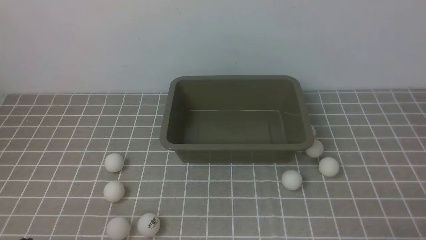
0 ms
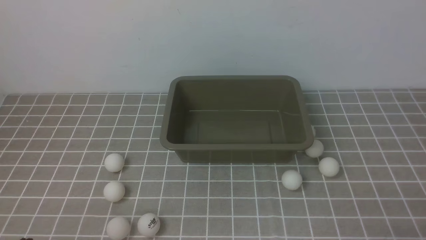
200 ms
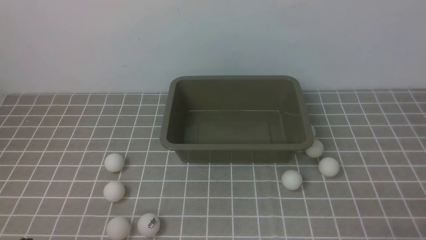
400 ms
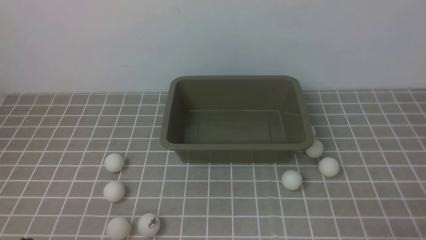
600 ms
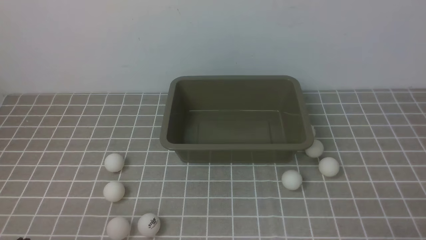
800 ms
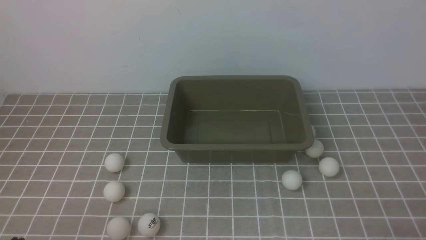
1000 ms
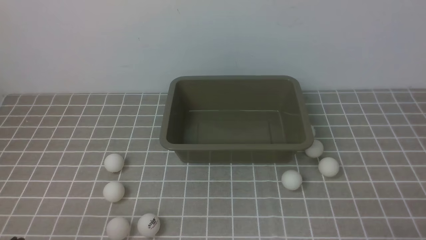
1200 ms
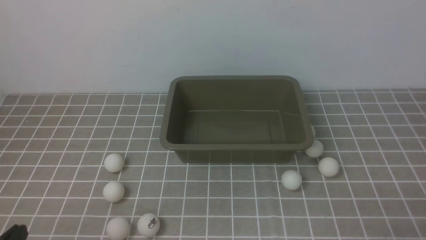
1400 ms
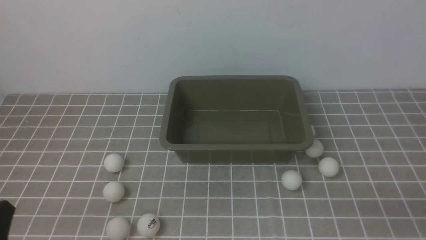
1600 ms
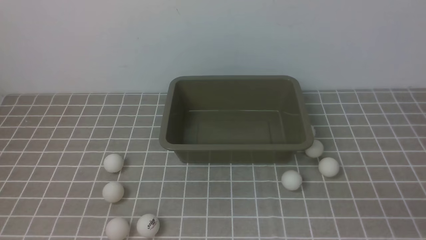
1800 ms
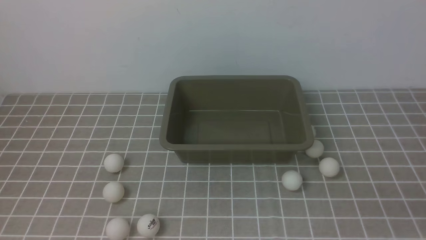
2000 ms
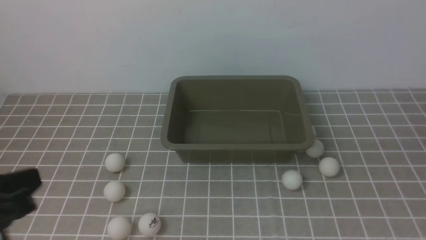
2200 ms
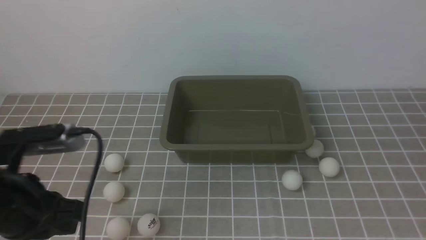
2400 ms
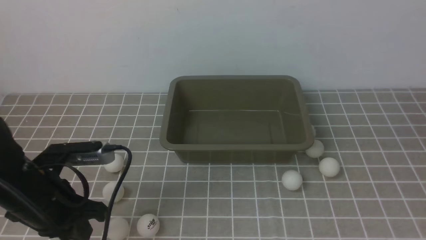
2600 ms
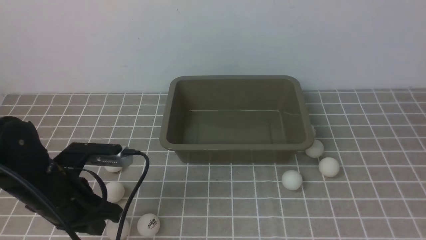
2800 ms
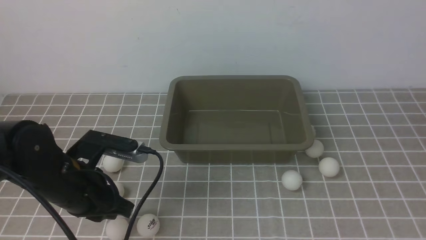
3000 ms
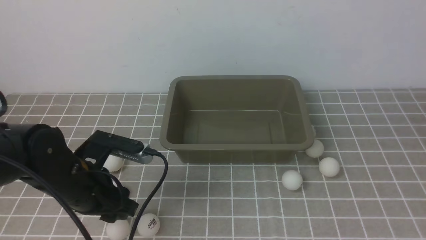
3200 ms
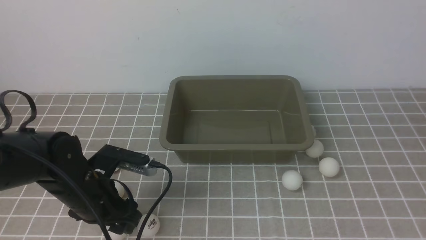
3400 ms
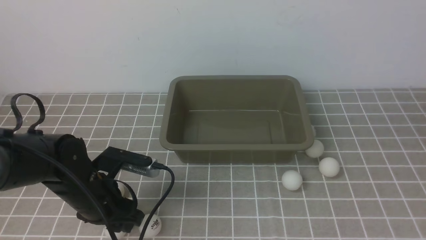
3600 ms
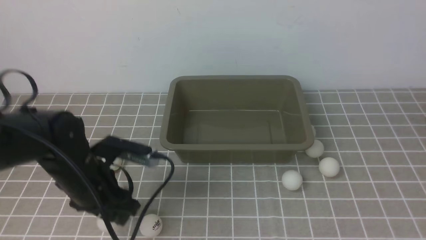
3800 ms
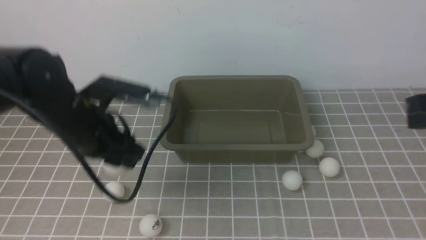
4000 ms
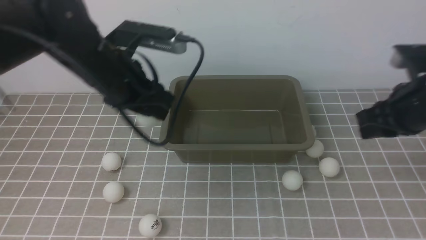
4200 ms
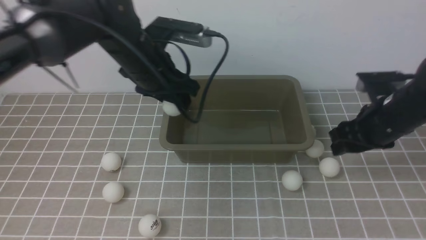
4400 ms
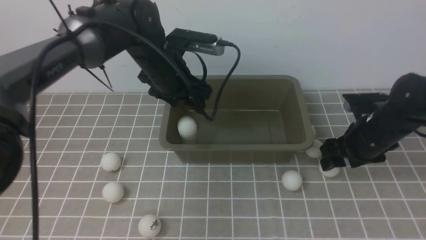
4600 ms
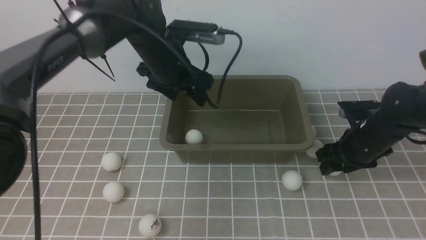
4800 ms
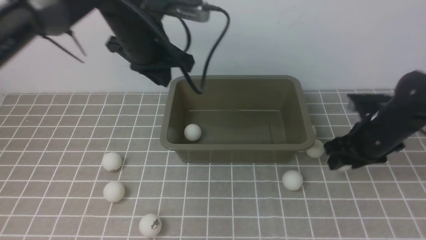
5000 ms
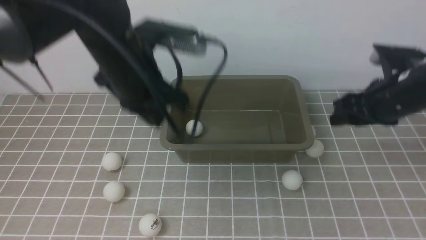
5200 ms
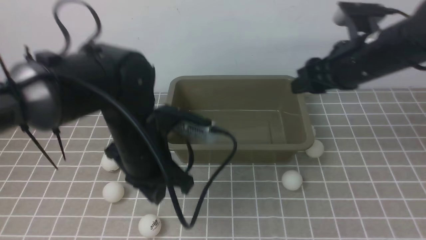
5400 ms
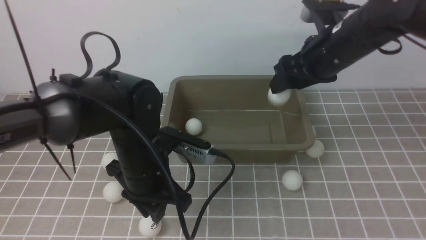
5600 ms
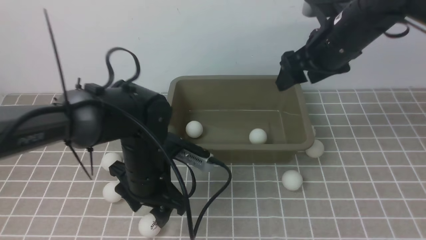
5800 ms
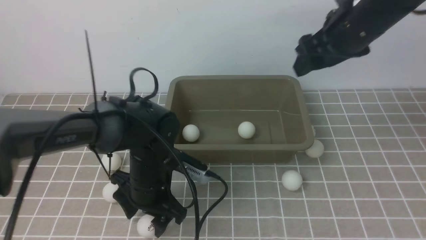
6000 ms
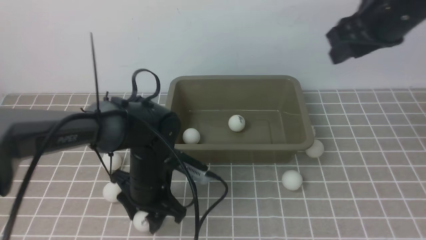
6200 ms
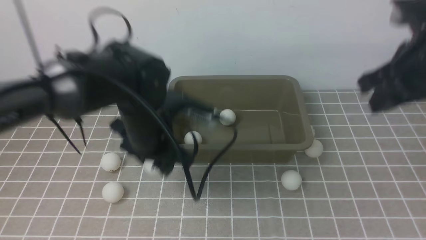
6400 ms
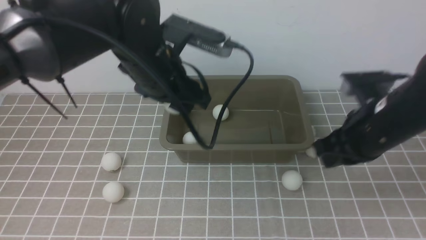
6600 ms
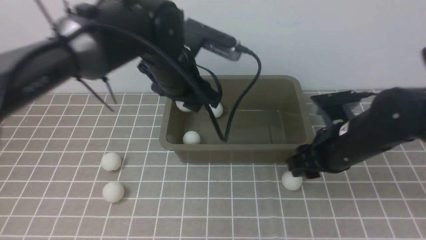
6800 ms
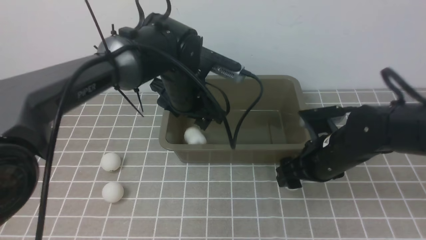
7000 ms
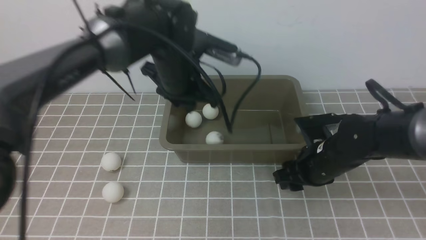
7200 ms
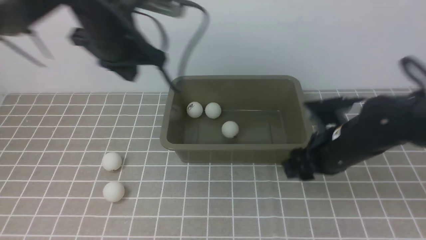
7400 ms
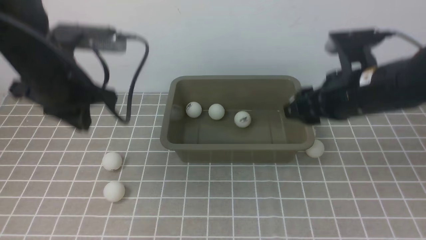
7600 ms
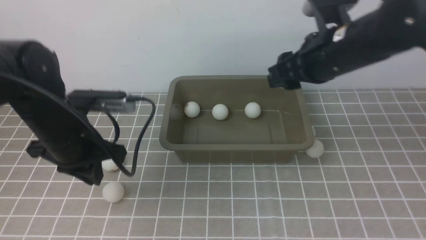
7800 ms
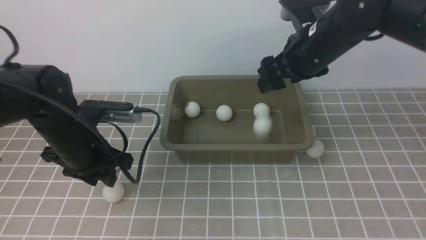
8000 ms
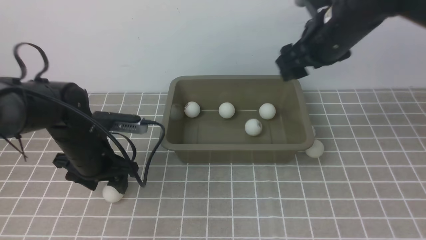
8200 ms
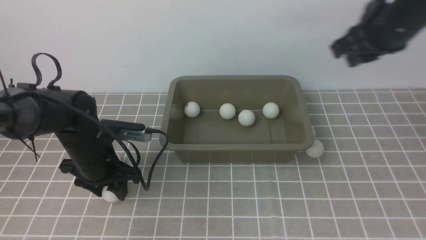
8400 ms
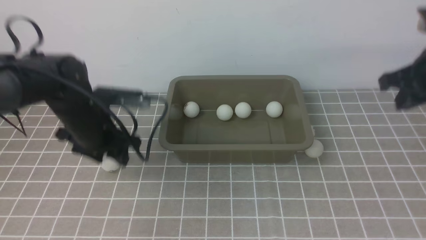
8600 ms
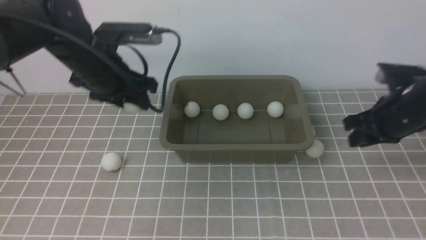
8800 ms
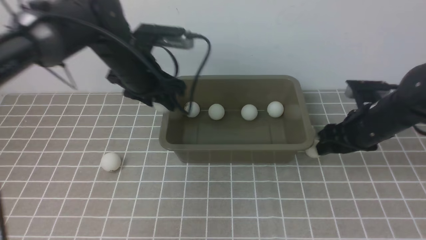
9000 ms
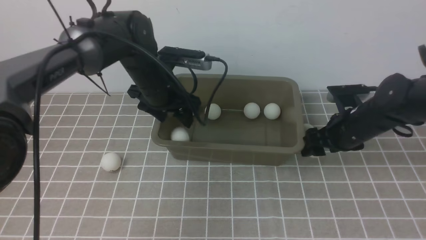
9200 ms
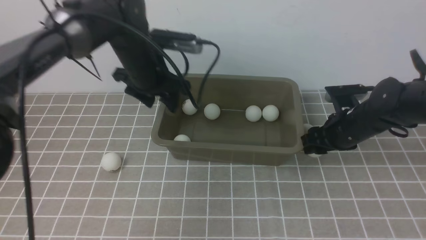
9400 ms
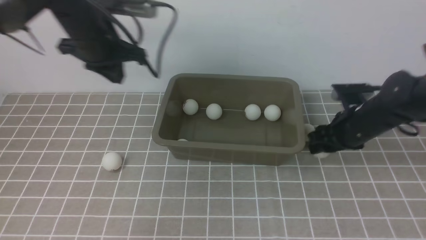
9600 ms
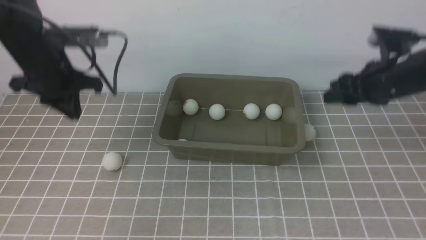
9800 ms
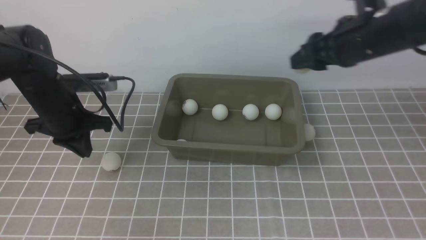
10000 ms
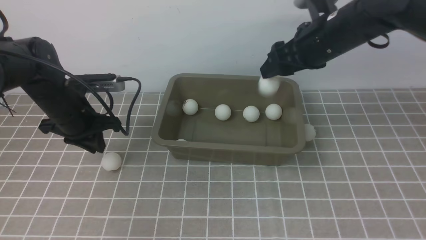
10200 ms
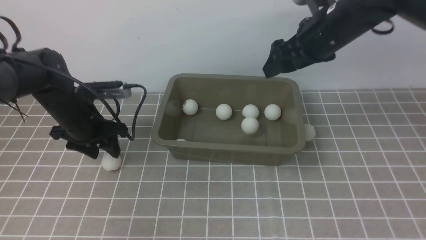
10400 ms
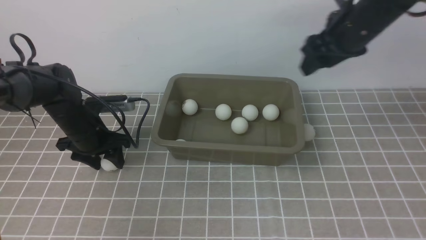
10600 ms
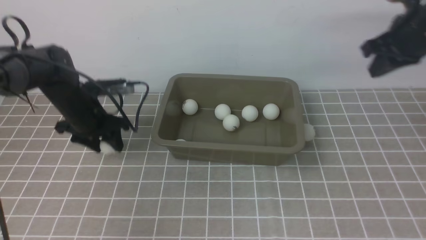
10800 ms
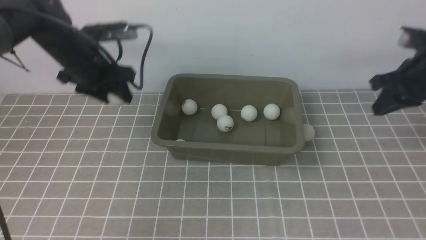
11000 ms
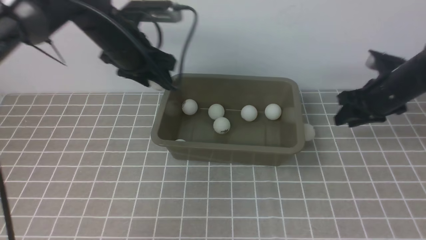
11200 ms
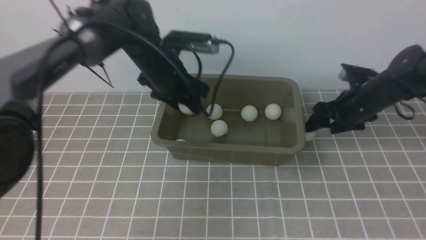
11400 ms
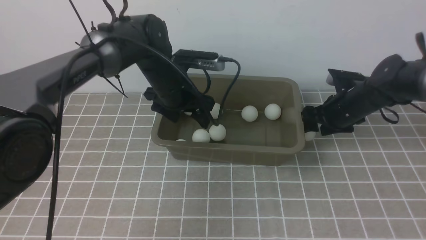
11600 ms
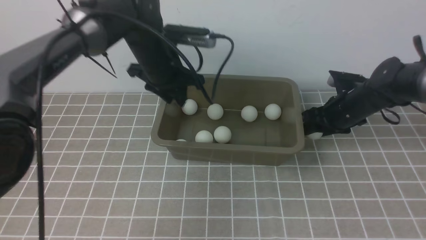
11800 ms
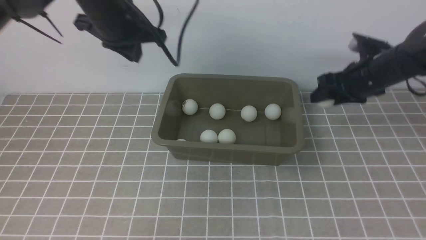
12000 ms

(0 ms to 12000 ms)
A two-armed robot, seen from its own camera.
Step, 0 ms - 3800 ms: use the left arm to clamp the table tennis ball closest to it.
Step, 4000 ms - 4600 ms: use the left arm to put the table tennis ball into the box.
Step, 4800 ms - 5000 ms: use the right arm to clamp the table tennis ball closest to it.
Step, 5400 ms - 5600 ms: use the right arm to put the table tennis ball into the box.
Step, 5800 ms - 6200 ms: use the left arm to clamp the table tennis ball closest to it.
Step, 6600 ms - 6800 ms: use the left arm to put the table tennis ball into the box.
Step, 7200 ms - 7400 ms: use the right arm to clamp the table tennis ball closest to it.
Step, 7800 ms - 8000 ms: use the right arm to put the table tennis ball into the box.
Step, 8200 ms - 8400 ms: use the left arm to clamp the table tennis ball closest to it.
Step, 8800 ms - 9200 ms: use the left arm to put the table tennis ball into the box.
Step, 9400 ms - 9600 ms: use the right arm to clamp the table tennis ball closest to it.
Step, 9800 ms - 10200 ms: use the right arm to put the table tennis ball into the box.
Step, 10400 ms - 10800 ms: use the left arm to clamp the table tennis ball closest to it.
Step, 11200 ms - 11400 ms: use the left arm to put the table tennis ball into the box.
Step, 11800 ms - 12000 ms: use the right arm to clamp the table tennis ball closest to it.
1600 ms - 3000 ms: The left gripper is displaced forward by some 20 cm, and opens its fingers, while the right gripper heads upward and forward, covering about 20 cm.
3000 ms - 4400 ms: The left gripper goes roughly 20 cm forward, upward and to the right, and opens. The right gripper shifts some 20 cm forward and downward, and opens its fingers.
4400 ms - 6000 ms: The right gripper moves upward and to the left, roughly 15 cm, while the left gripper heads downward and backward, covering about 15 cm, and closes, then reopens.
6000 ms - 7600 ms: The left gripper is displaced upward and to the left by some 15 cm, and closes up, while the right gripper moves downward, approximately 10 cm, and closes, then opens again.
7600 ms - 9000 ms: The left gripper heads forward and to the right, covering approximately 10 cm, goes downward and returns, roughly 15 cm each way, and opens; the right gripper shifts about 15 cm downward and to the right, and closes, then reopens.
9000 ms - 10400 ms: The left gripper is displaced to the left and downward by some 15 cm, and closes, then opens again, while the right gripper heads upward and to the left, covering approximately 15 cm.
10400 ms - 12000 ms: The left gripper is displaced upward and to the right by approximately 20 cm, and closes; the right gripper heads downward, covering approximately 10 cm, and closes, then opens again.

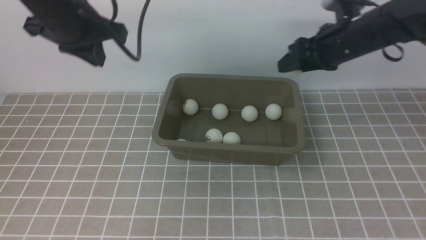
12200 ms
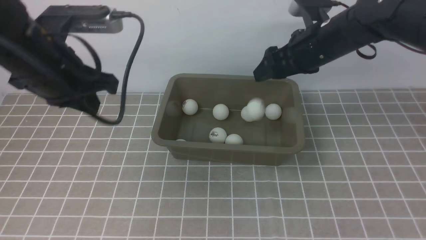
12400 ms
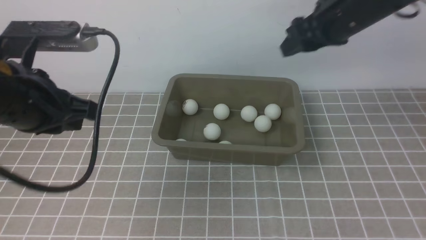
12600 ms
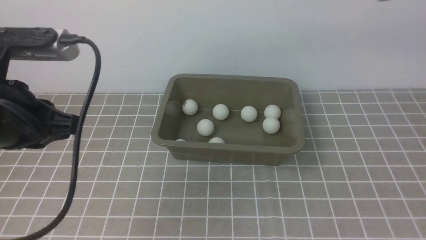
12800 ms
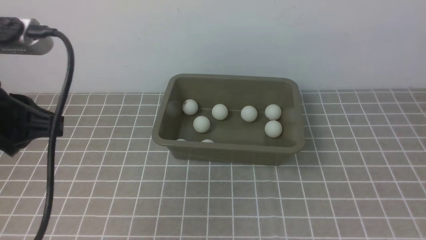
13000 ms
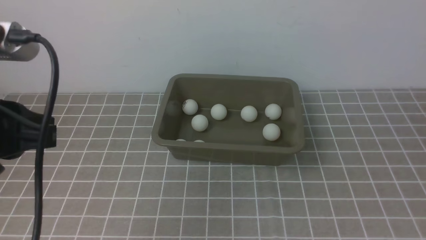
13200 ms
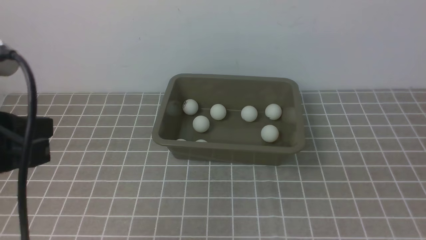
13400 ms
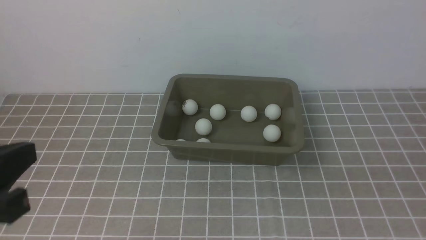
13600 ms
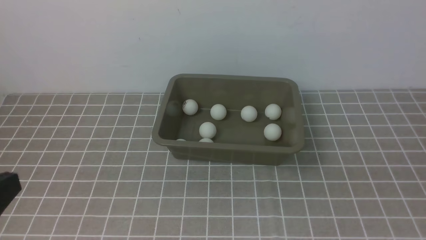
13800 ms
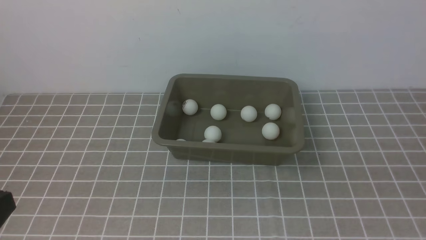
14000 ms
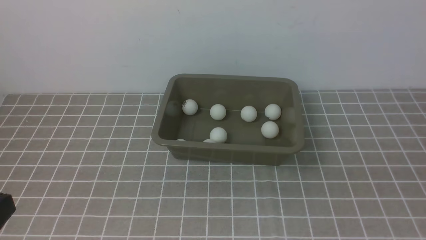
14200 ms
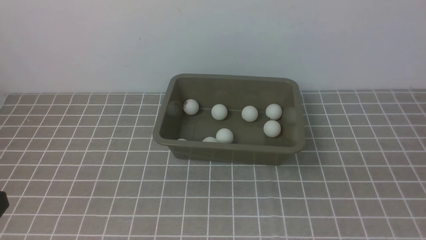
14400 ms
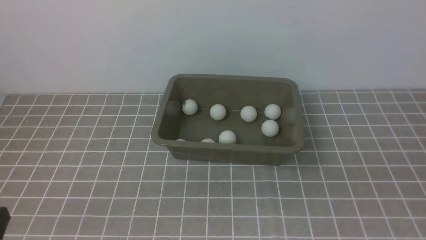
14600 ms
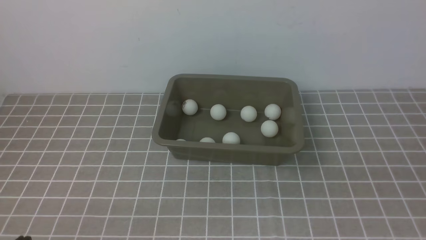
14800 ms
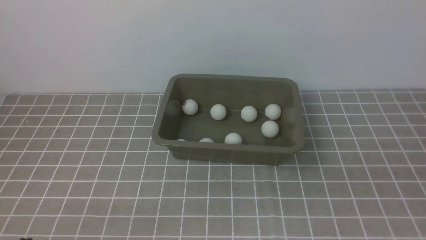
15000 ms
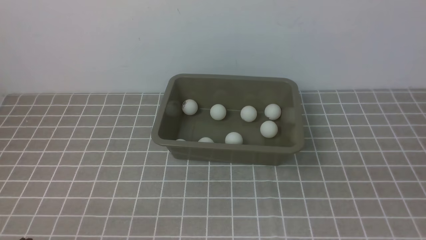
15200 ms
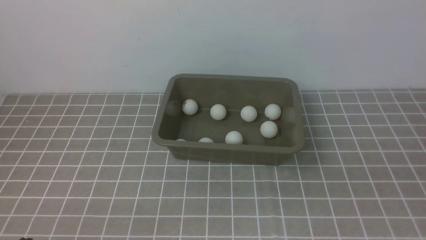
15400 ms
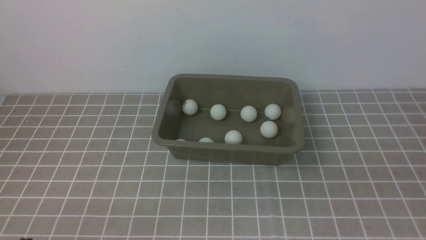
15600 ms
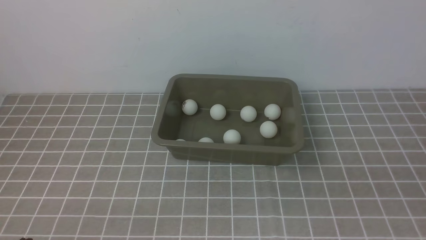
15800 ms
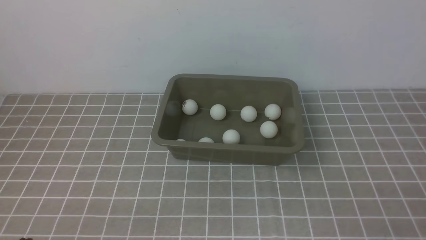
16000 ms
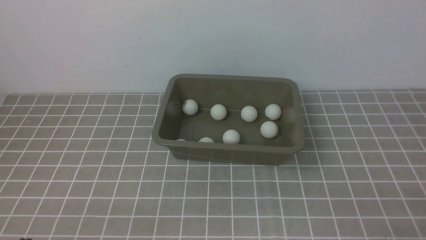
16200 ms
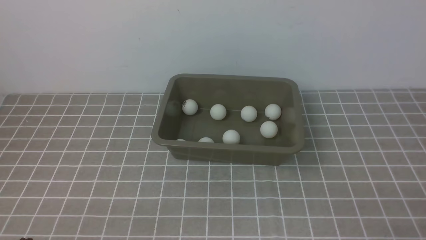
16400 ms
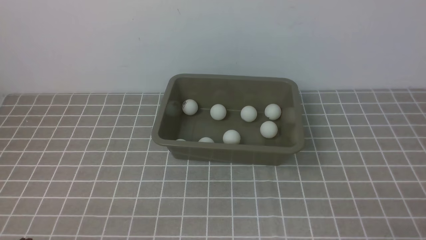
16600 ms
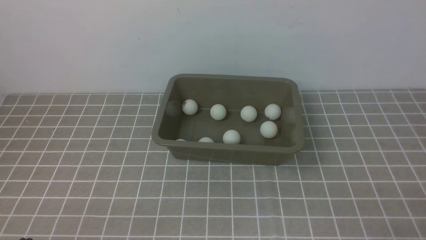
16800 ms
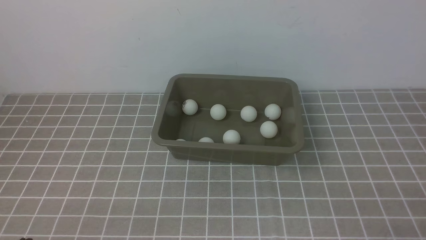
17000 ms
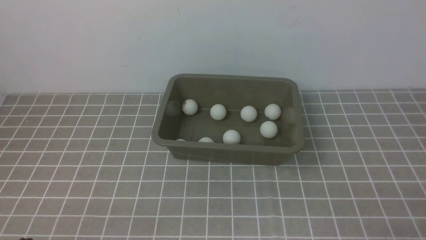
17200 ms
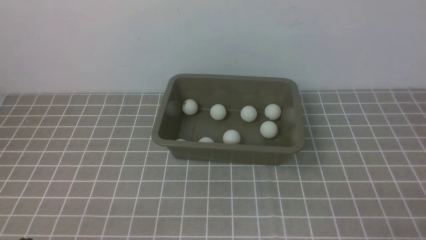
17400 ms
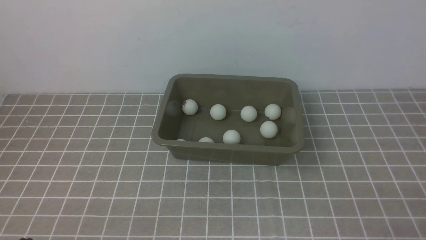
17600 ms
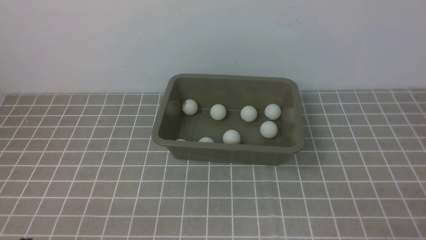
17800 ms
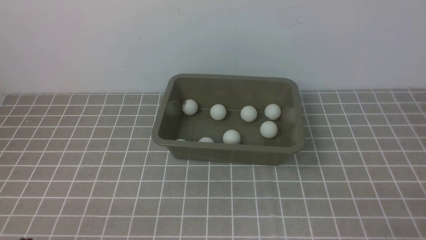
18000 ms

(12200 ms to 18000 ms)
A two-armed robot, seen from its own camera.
Step, 12200 ms - 12400 ms: use the right arm to put the table tennis ball into the box.
12200 ms - 13600 ms: The grippers both shift backward by some 35 cm. The right gripper closes up.
13600 ms - 15000 ms: The left gripper travels downward by about 15 cm.
16600 ms - 18000 ms: Both grippers stay about where they are.
